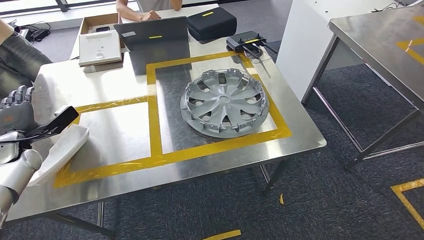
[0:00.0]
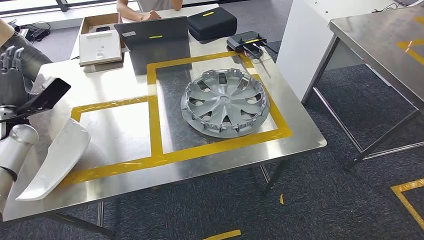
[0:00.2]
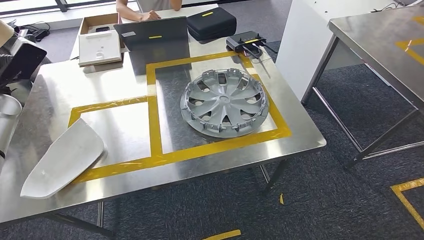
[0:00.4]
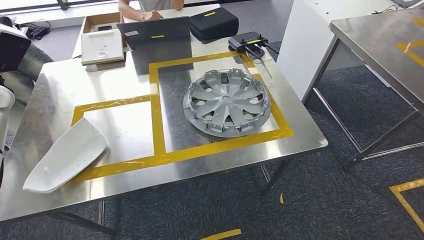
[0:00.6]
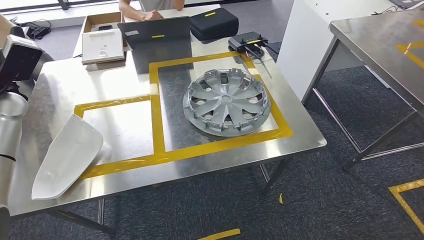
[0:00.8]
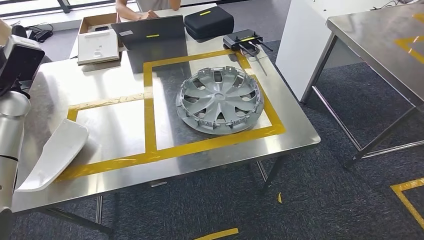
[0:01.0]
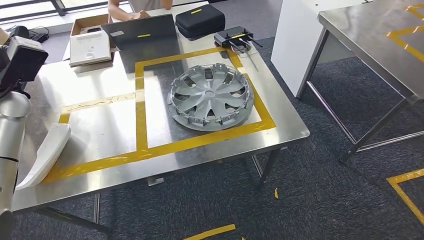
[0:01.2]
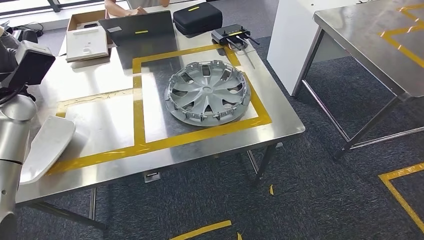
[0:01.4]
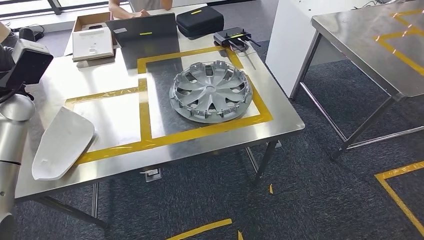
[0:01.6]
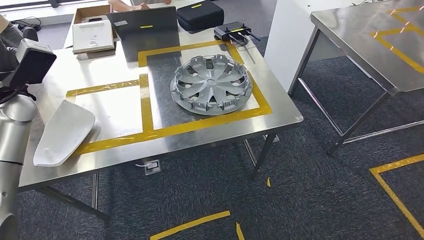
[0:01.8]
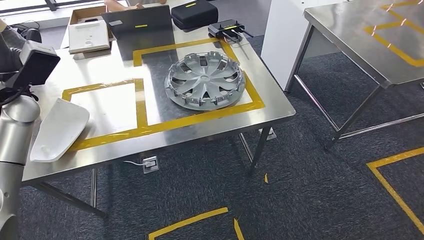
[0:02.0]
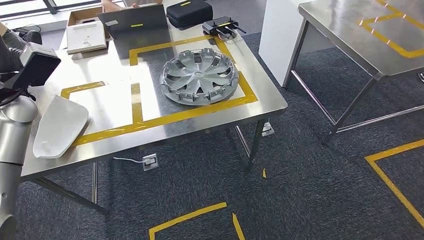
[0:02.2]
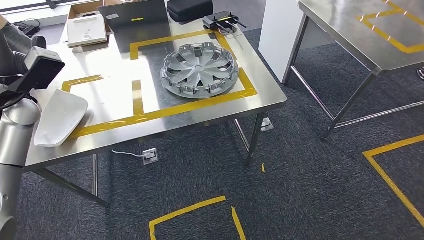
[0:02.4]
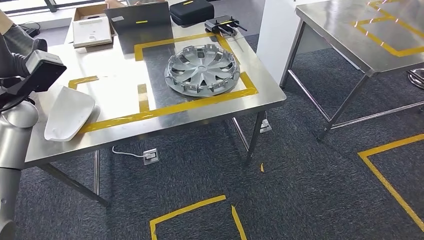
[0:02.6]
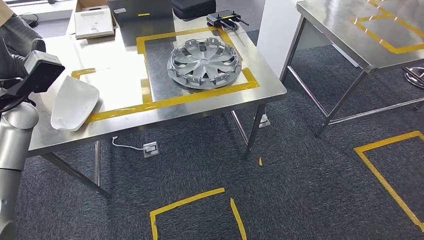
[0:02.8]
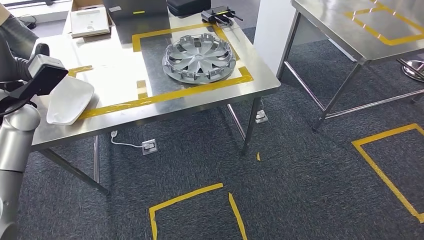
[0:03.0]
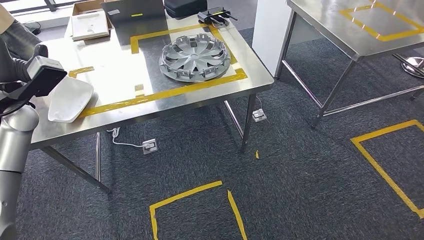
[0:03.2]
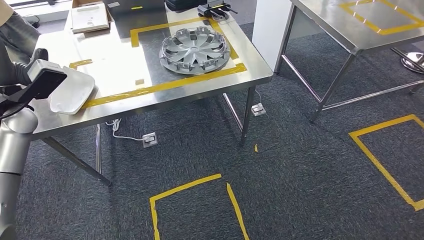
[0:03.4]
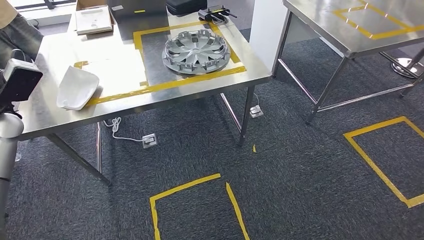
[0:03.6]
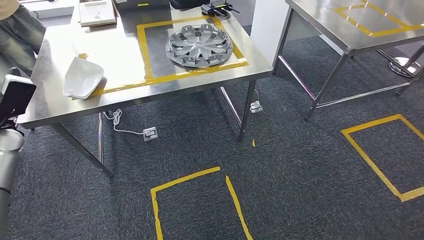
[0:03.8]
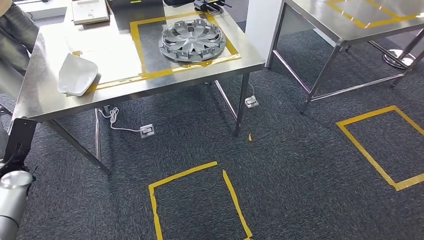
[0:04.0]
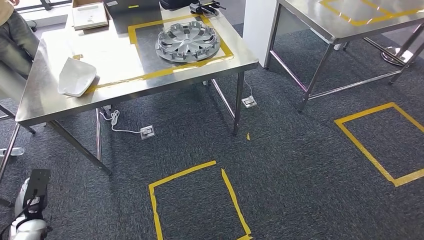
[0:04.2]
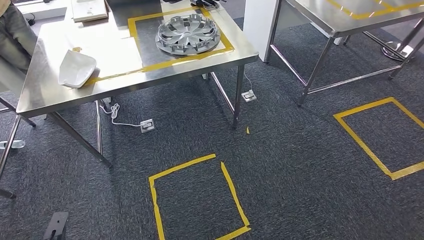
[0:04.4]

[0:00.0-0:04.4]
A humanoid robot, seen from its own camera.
Step, 0:01.4 to 0:04.4: Move to the initial position at the workbench.
